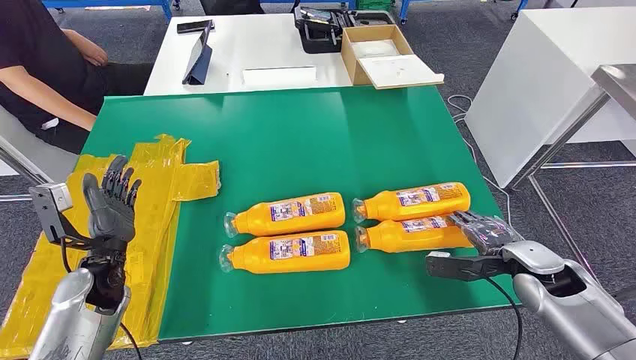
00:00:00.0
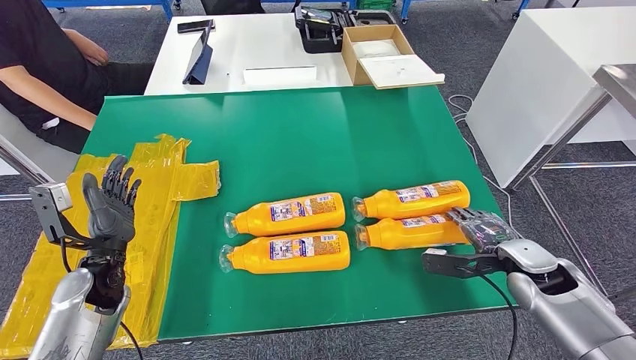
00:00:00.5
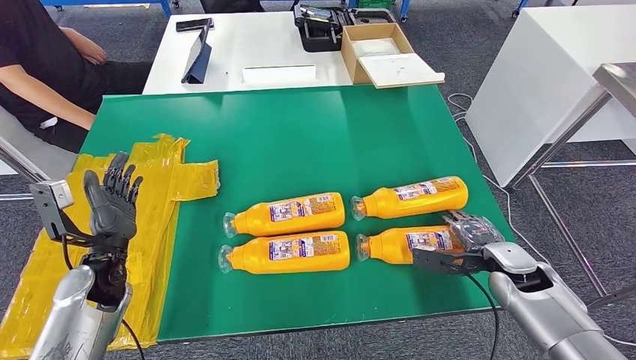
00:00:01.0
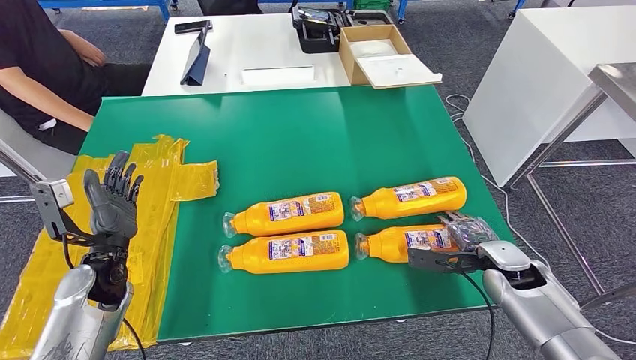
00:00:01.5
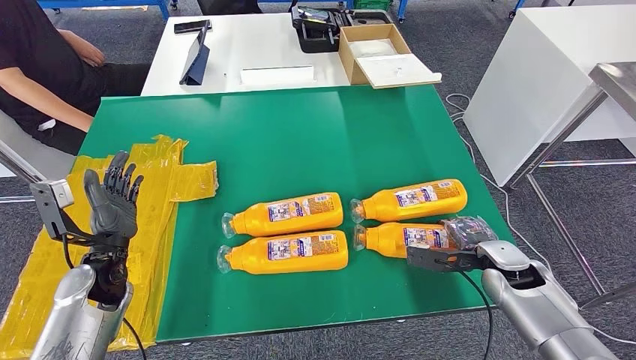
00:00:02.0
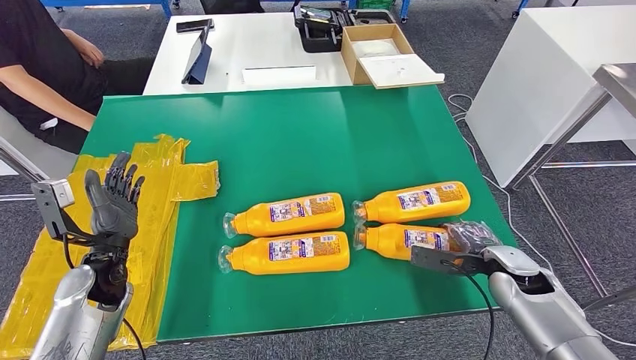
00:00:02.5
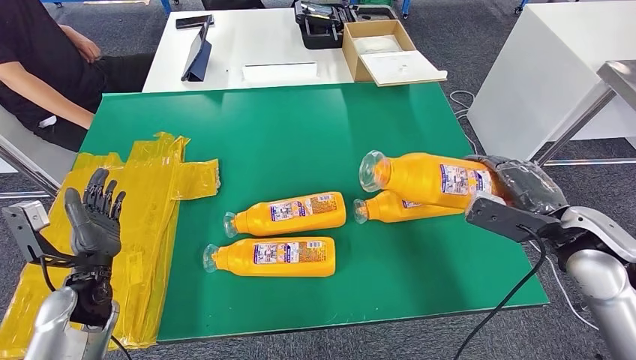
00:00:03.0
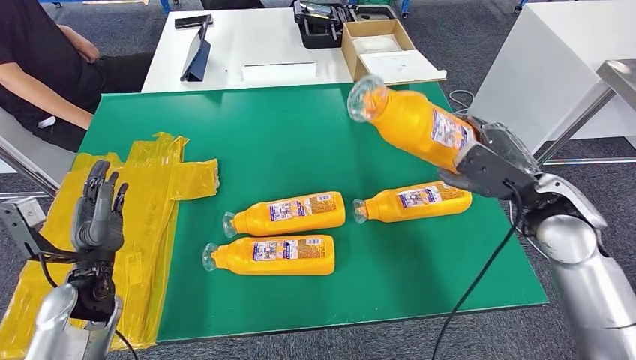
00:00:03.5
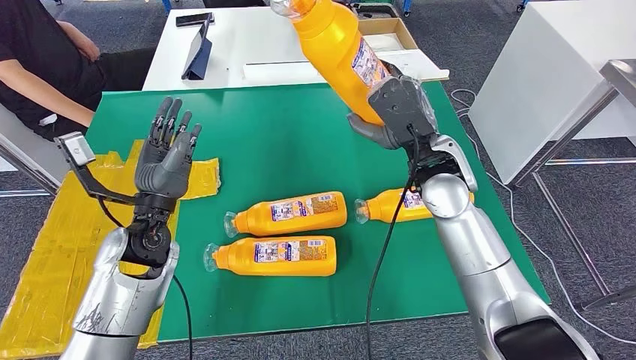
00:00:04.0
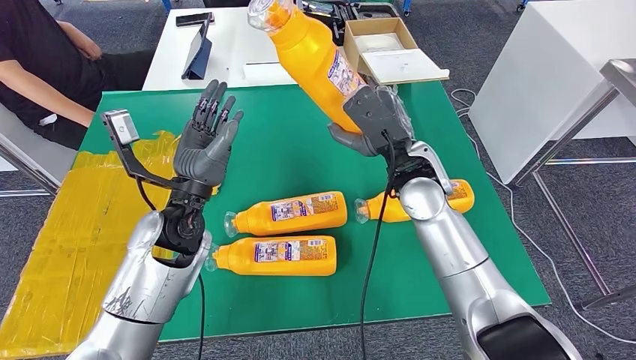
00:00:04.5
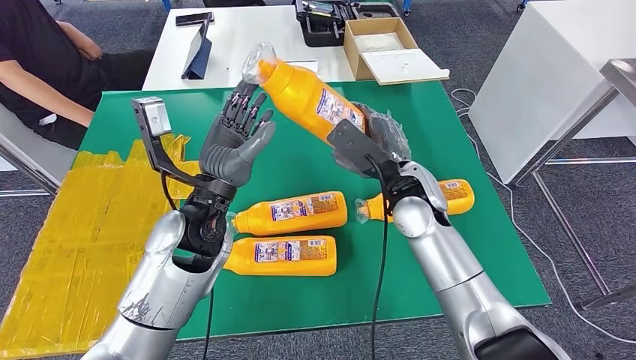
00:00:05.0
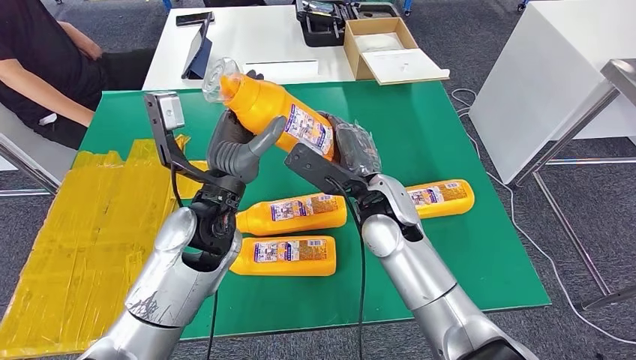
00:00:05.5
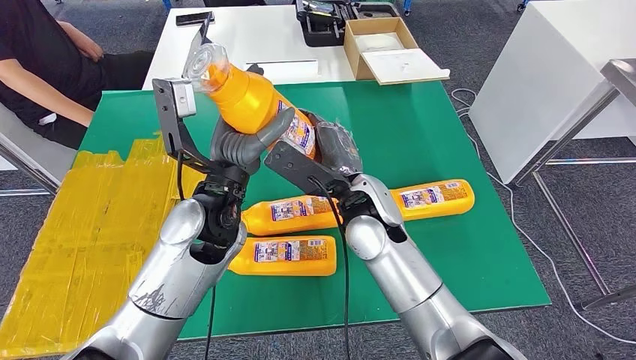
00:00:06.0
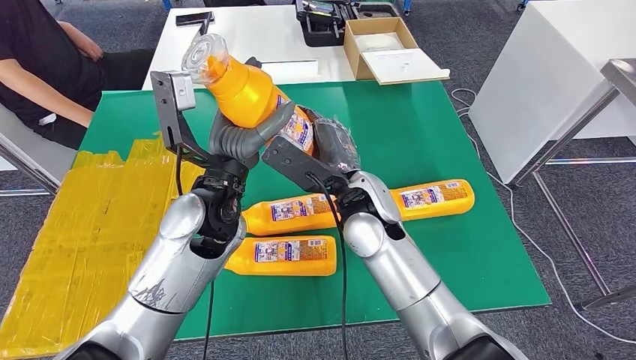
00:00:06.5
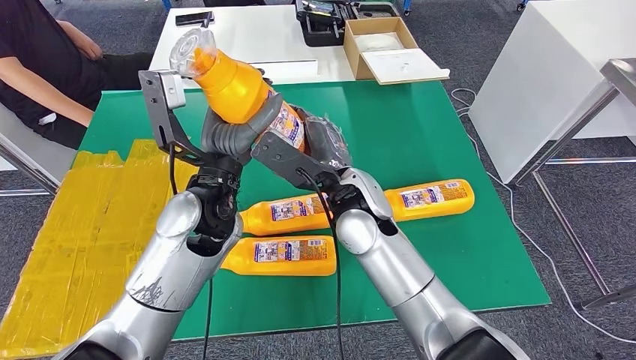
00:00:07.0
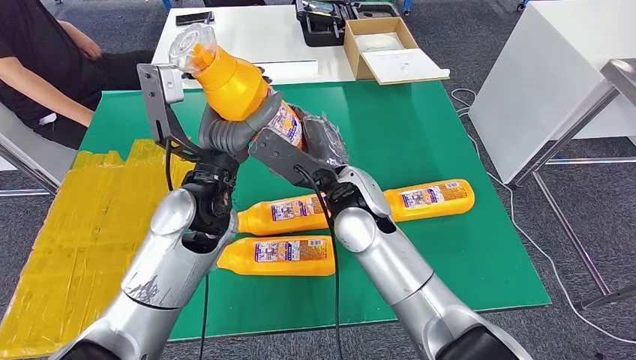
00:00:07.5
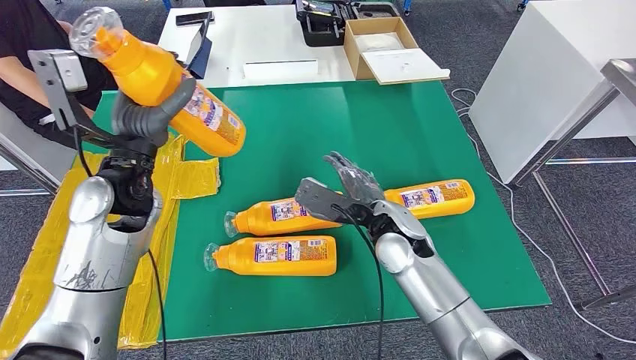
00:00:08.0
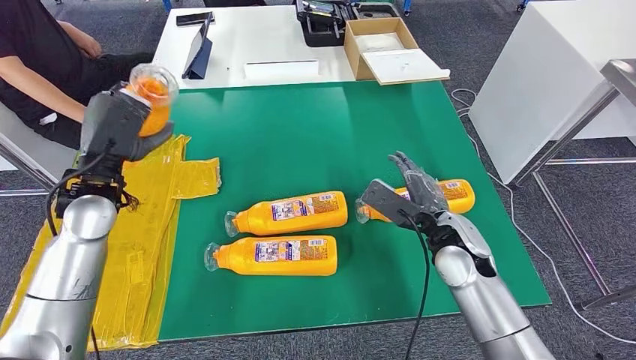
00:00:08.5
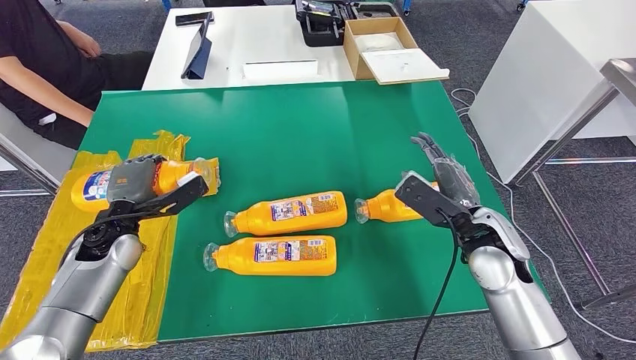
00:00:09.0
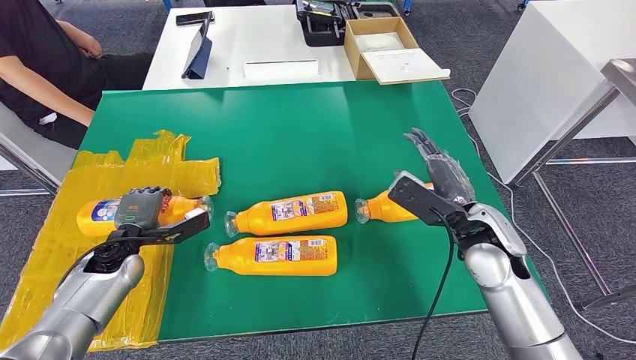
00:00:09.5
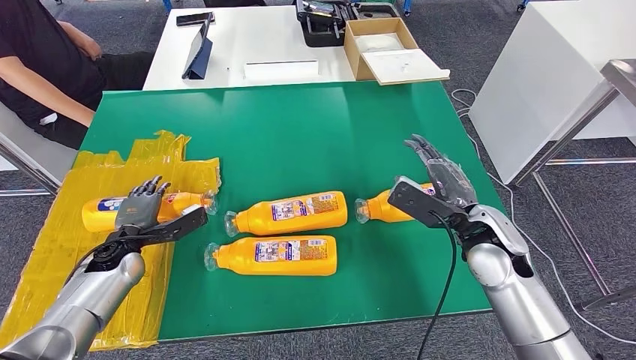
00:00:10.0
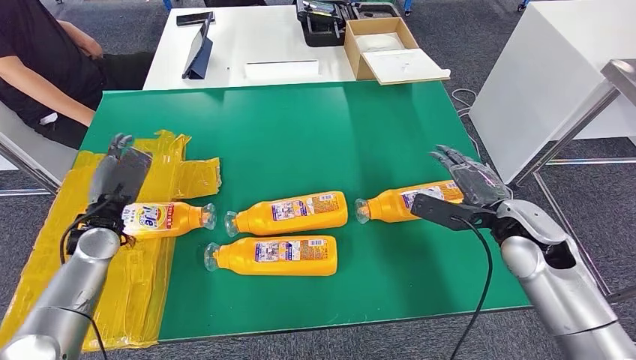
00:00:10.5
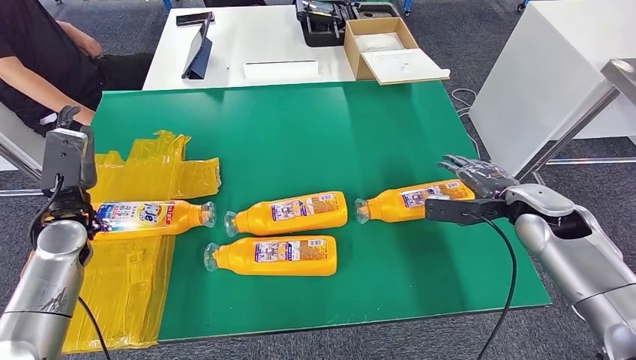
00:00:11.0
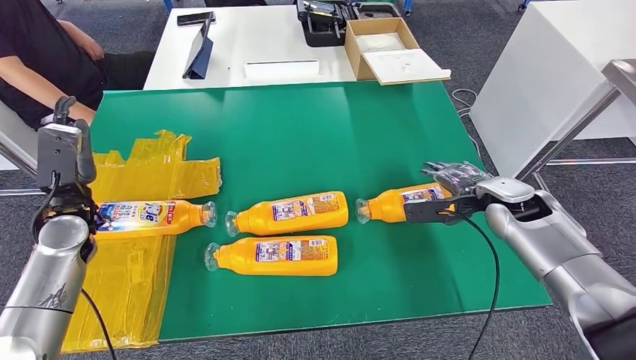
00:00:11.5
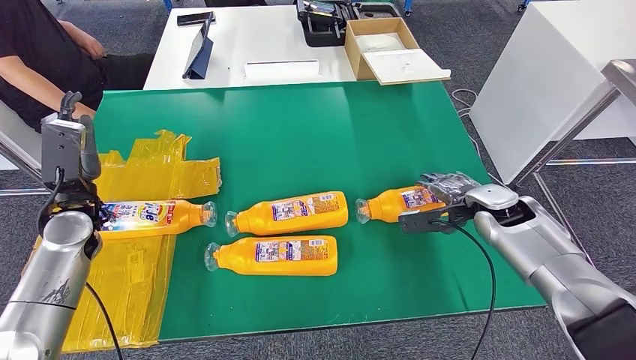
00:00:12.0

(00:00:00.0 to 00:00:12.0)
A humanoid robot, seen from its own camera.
Step, 00:00:00.0 - 00:00:04.5: Take the fast-moving consumer goods bottle from the table.
Step, 00:00:05.5 - 00:00:11.5: Flip the fast-moving consumer goods bottle to the front side.

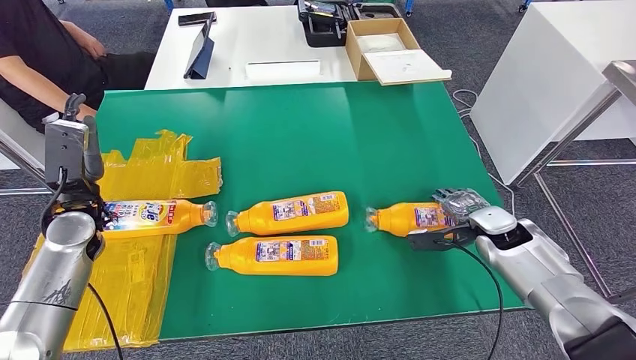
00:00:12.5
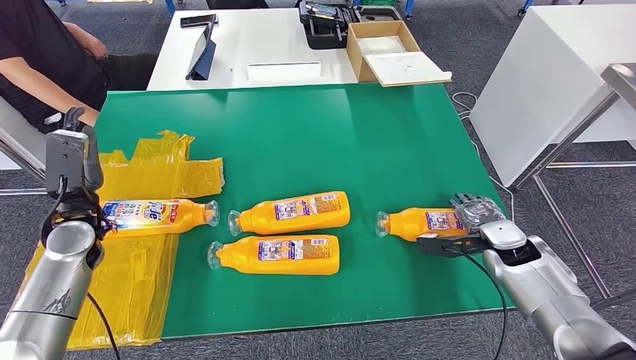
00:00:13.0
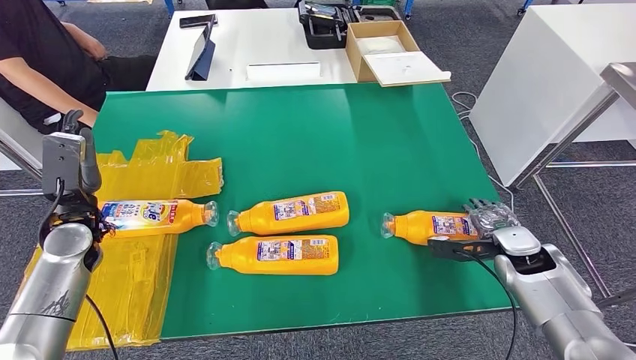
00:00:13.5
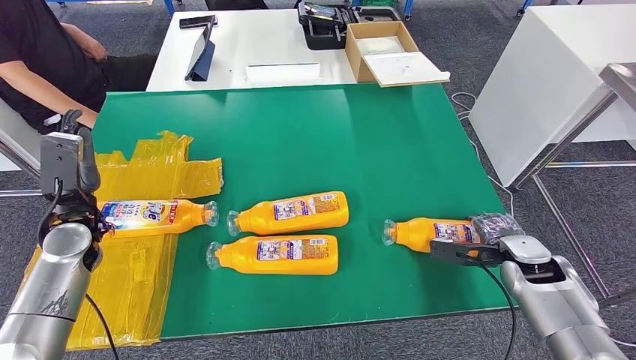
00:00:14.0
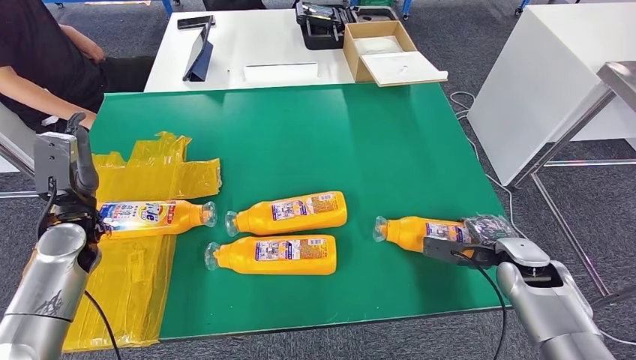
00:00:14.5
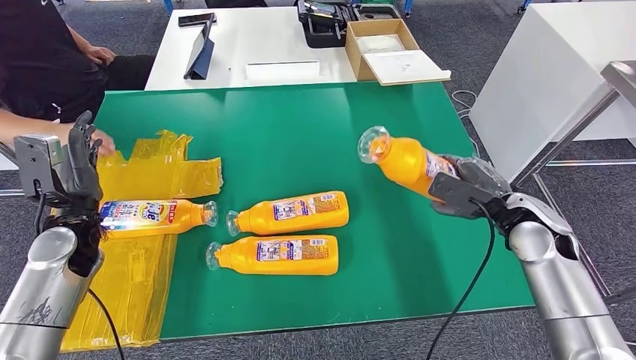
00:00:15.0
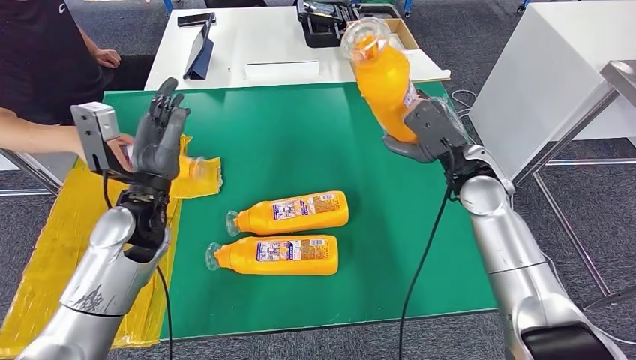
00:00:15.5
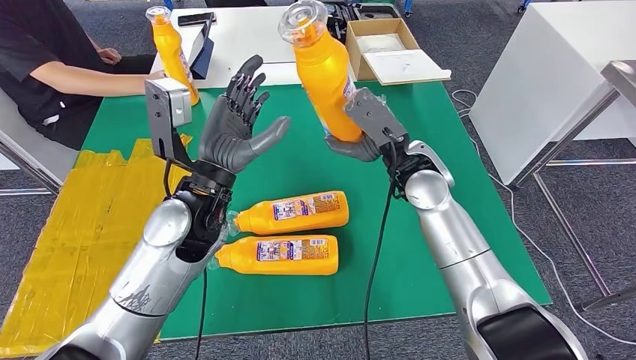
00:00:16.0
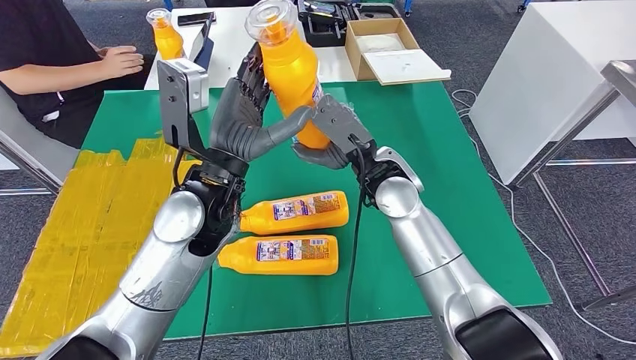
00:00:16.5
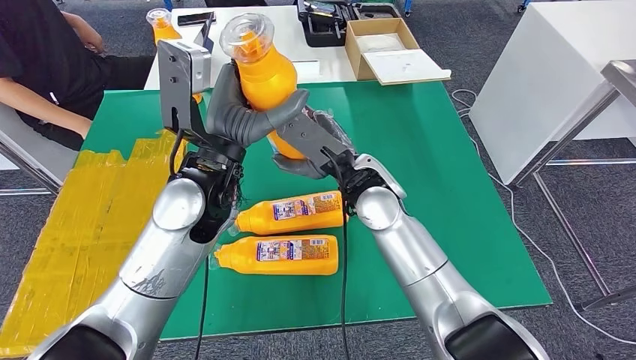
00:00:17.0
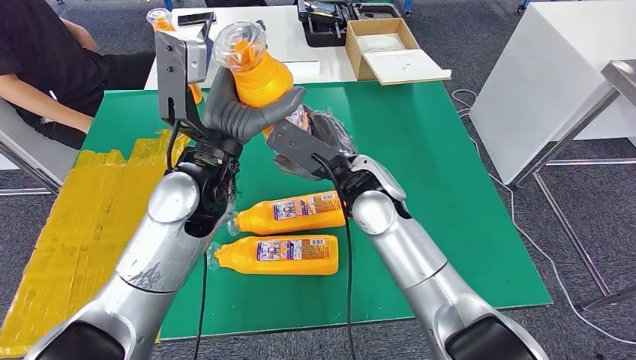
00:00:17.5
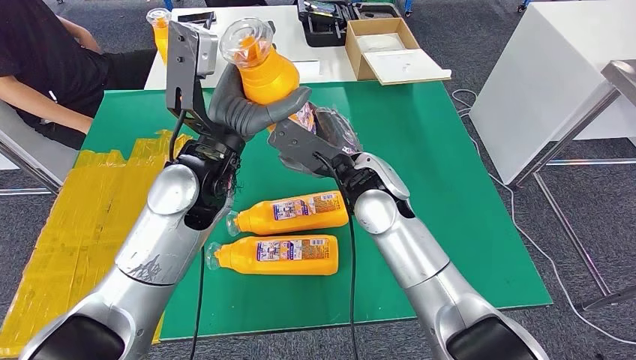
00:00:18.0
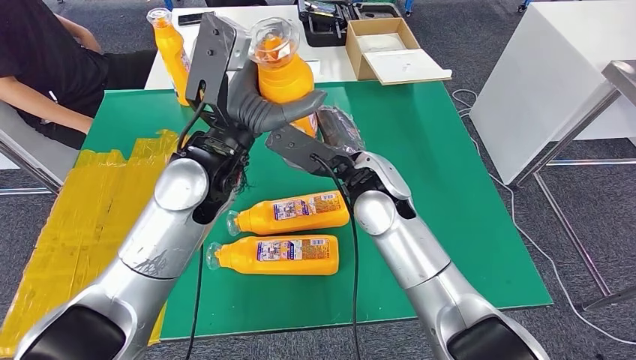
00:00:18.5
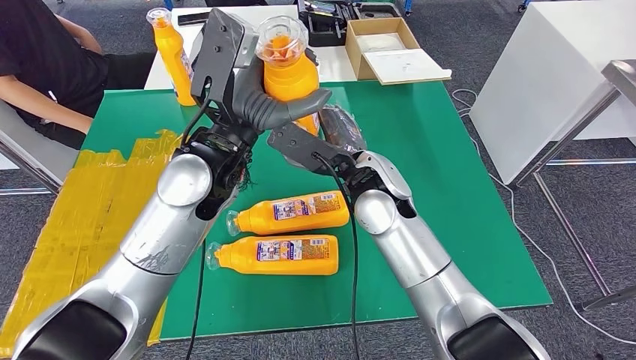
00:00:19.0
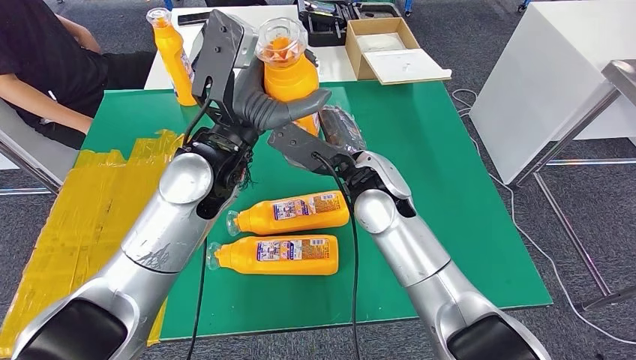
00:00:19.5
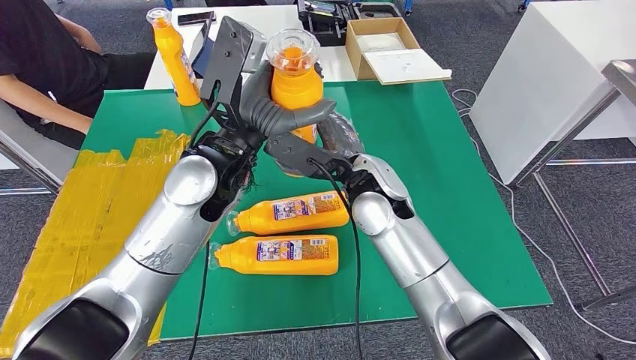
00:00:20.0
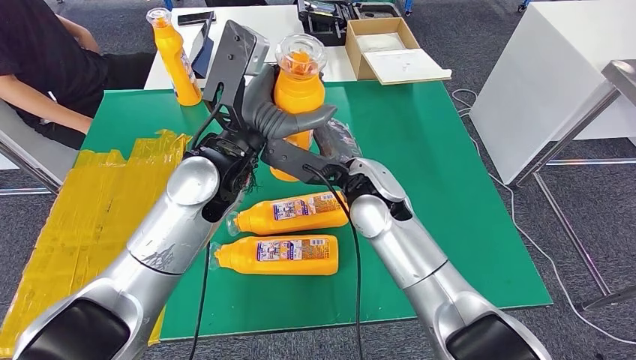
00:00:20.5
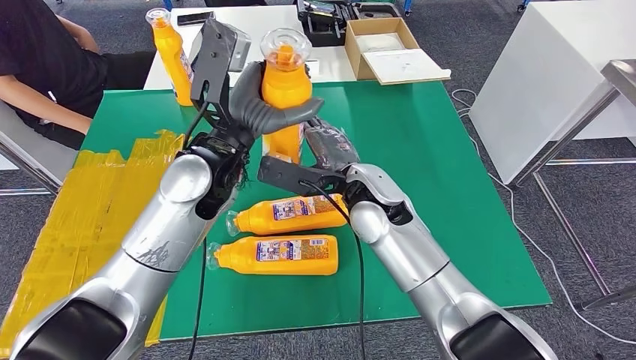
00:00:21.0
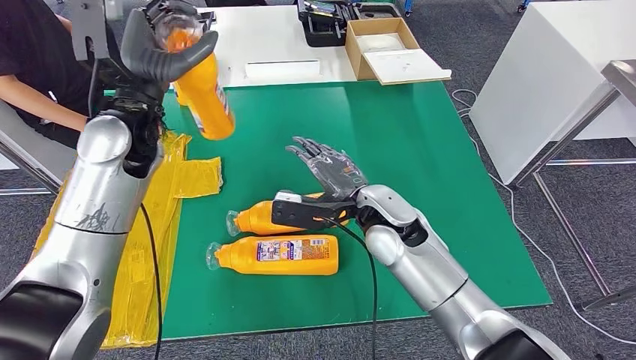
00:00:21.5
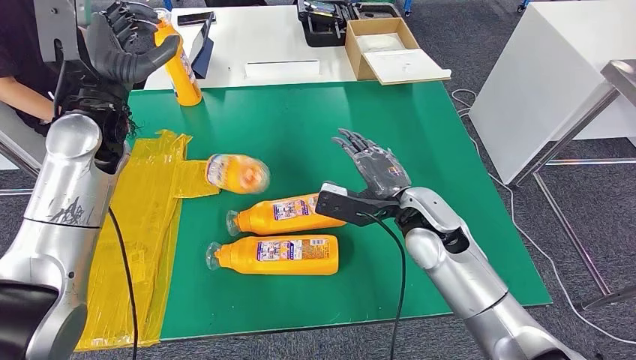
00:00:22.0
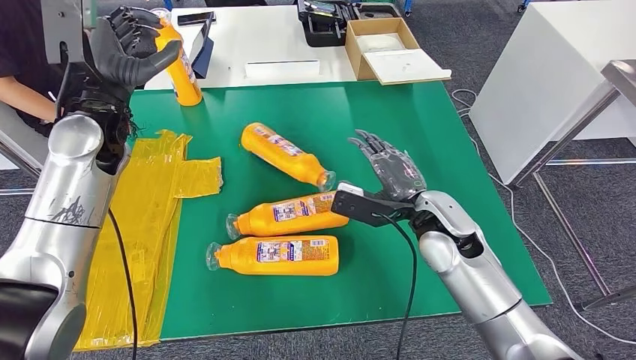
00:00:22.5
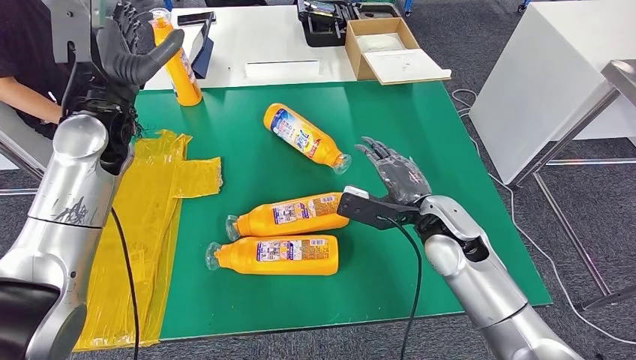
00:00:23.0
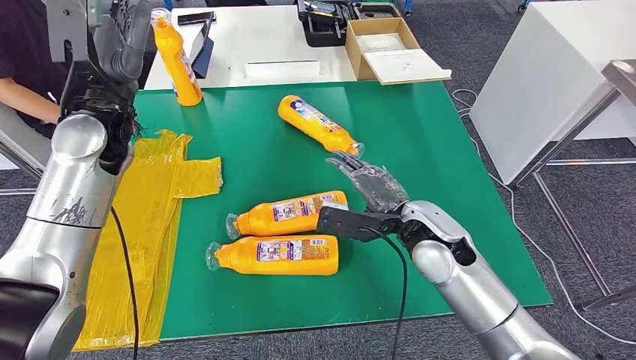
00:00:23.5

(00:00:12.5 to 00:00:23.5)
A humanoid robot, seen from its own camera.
Step, 00:00:12.5 - 00:00:18.5: Pick up the fast-moving consumer goods bottle from the table.
00:00:18.0 - 00:00:20.0: The hands make only small movements.
